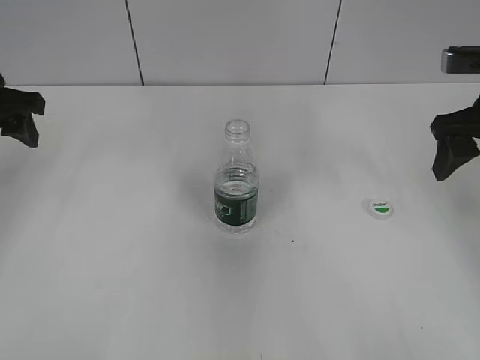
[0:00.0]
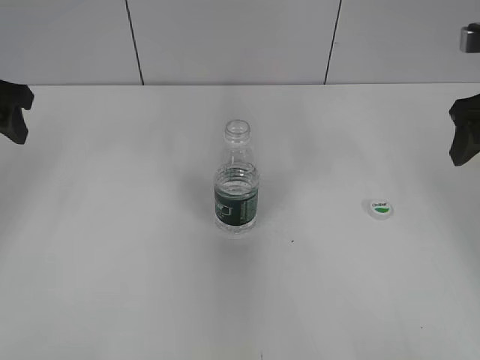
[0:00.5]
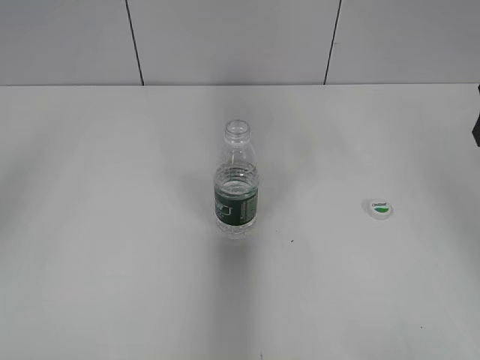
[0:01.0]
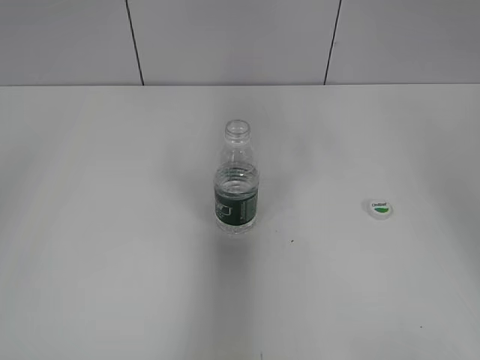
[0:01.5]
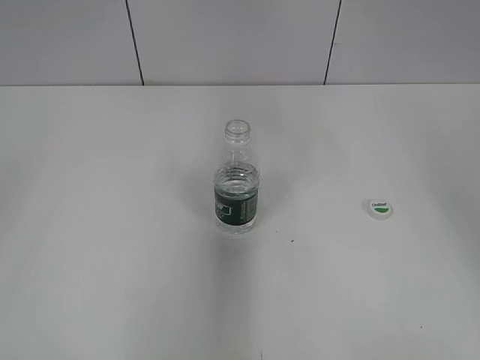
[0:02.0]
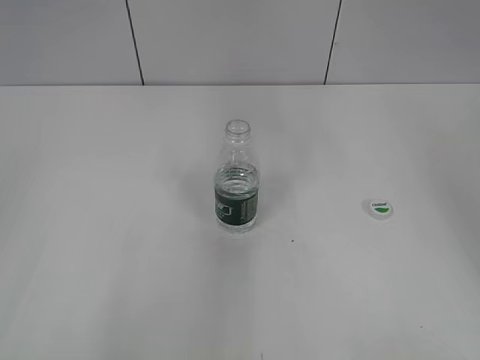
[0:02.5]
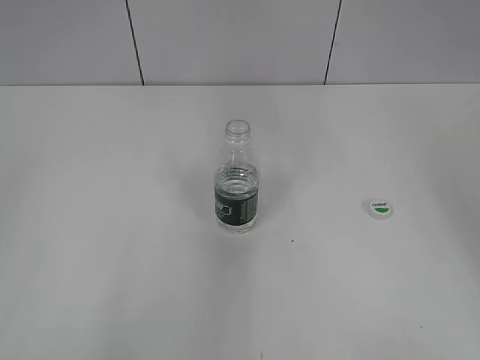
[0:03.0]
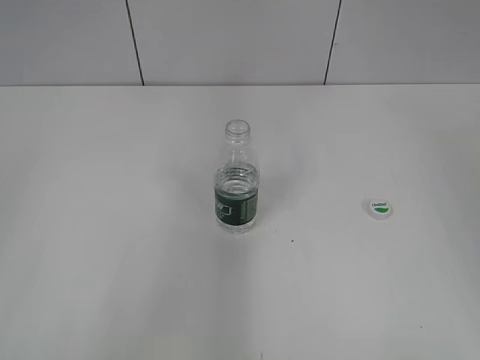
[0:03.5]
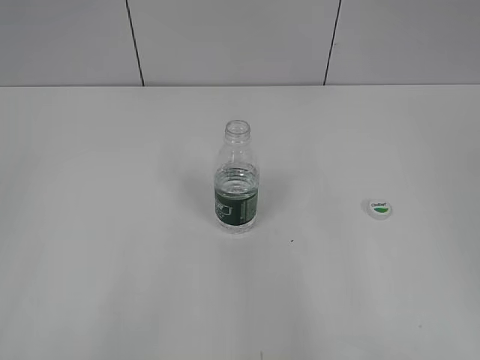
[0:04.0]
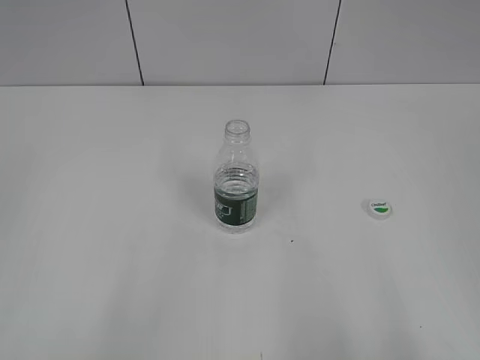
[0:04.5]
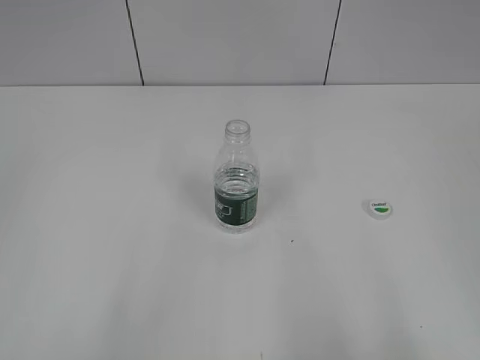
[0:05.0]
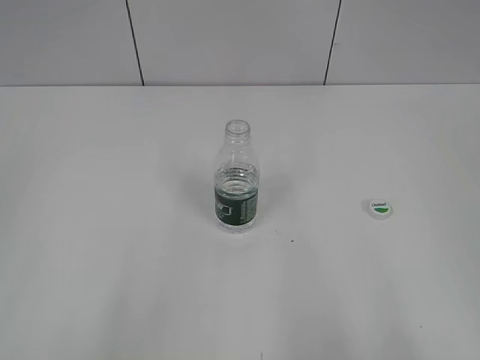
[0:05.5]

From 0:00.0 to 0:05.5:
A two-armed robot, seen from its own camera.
From 0:00.0 to 0:02.0: The left gripper moves backward, some 30 cm, while the right gripper is displaced upward and backward by approximately 10 cm.
From 0:03.5 to 0:05.5: The right gripper travels backward and downward by some 20 cm.
